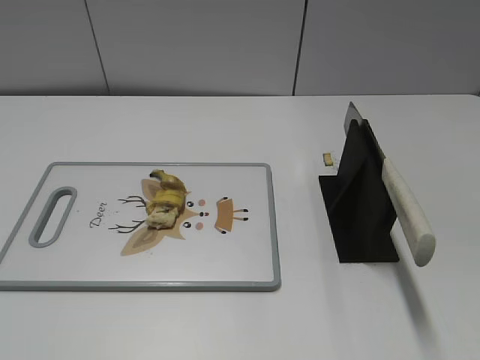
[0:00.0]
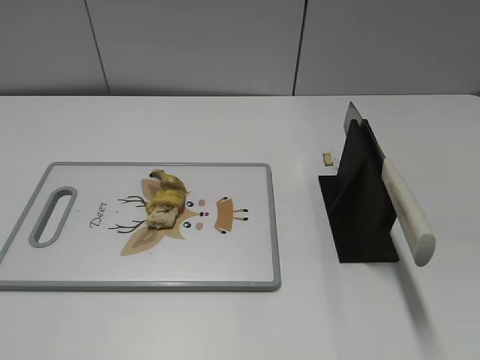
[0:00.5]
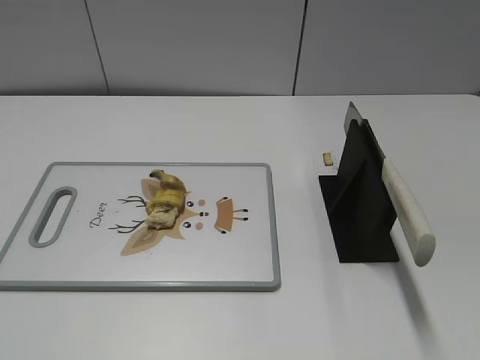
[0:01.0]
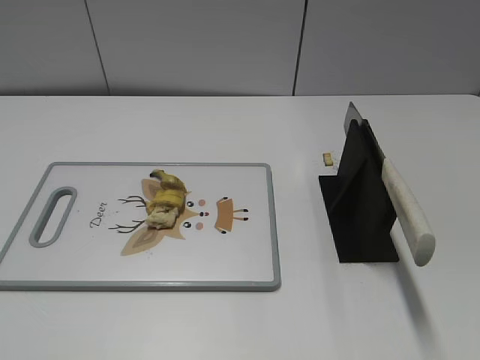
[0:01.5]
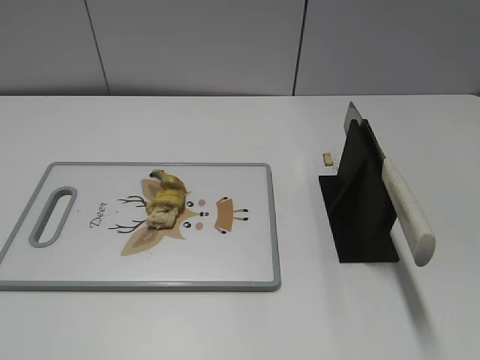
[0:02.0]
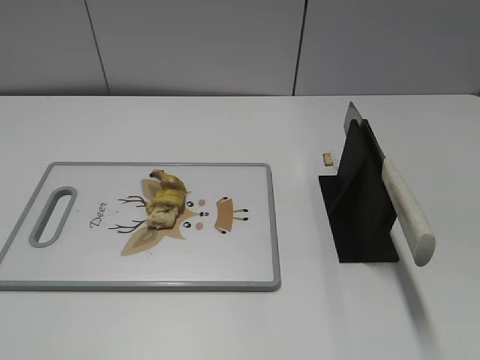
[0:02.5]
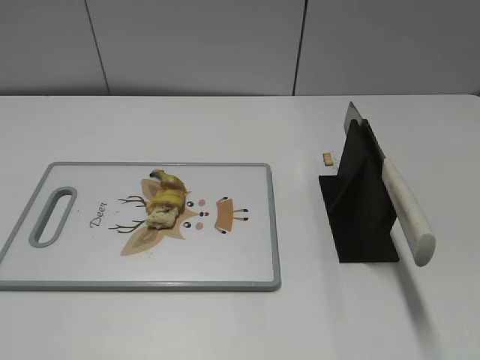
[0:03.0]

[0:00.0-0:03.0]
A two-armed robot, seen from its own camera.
Task of the whole recording: cut banana.
0:00.0 to 0:03.0: Neither gripper changes place.
